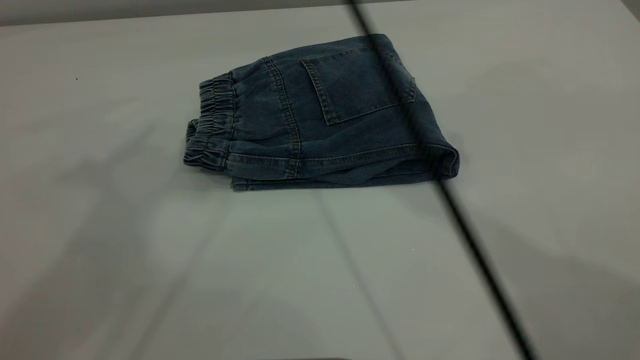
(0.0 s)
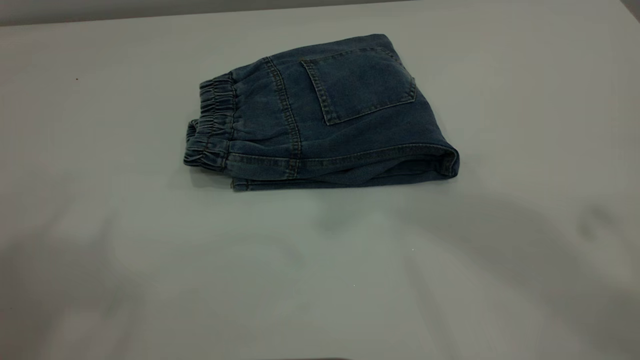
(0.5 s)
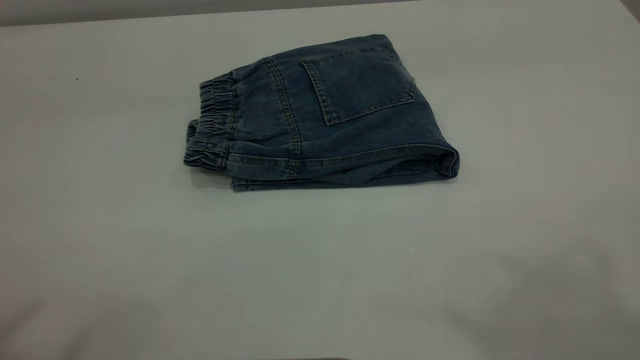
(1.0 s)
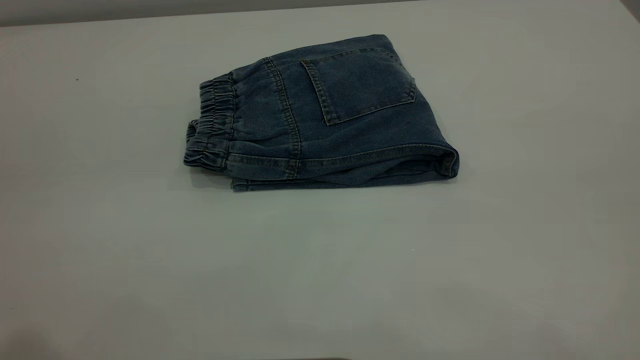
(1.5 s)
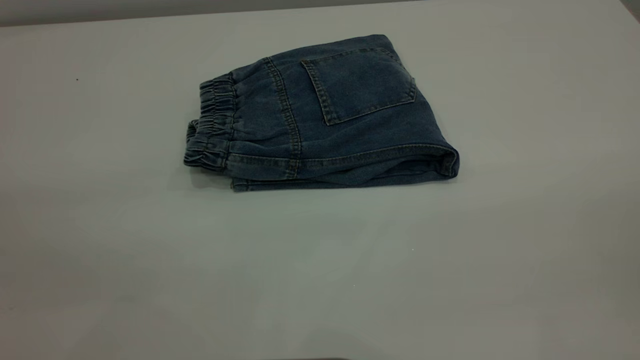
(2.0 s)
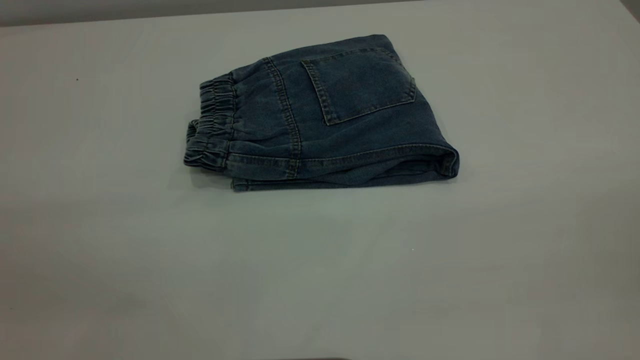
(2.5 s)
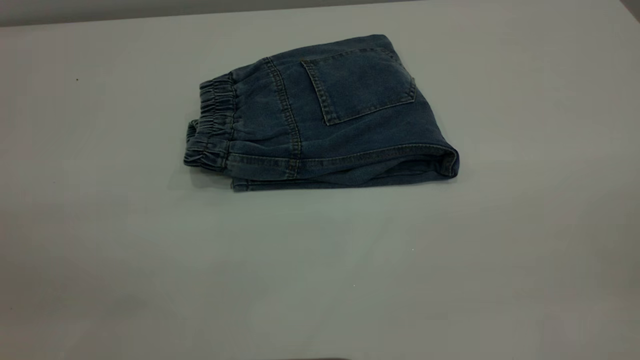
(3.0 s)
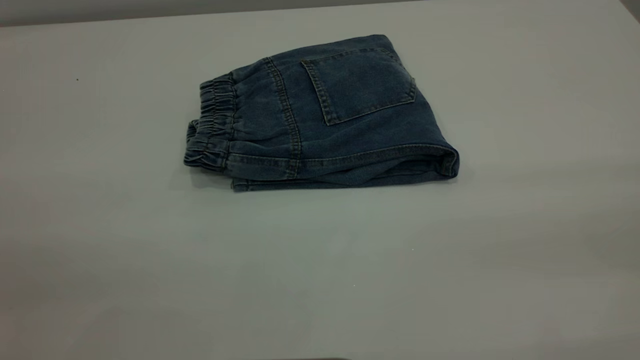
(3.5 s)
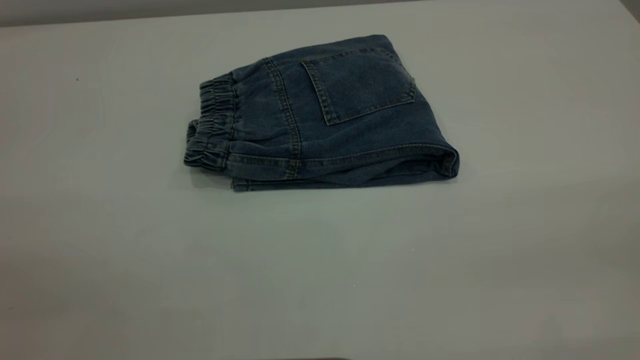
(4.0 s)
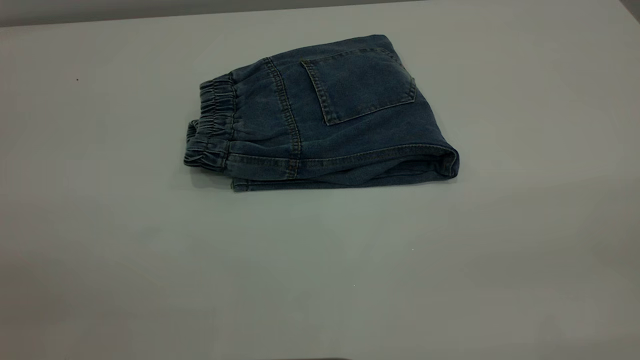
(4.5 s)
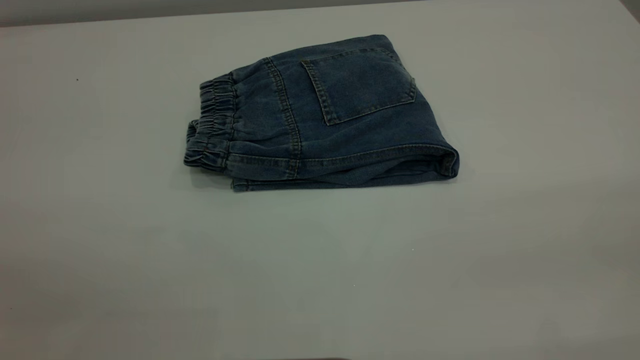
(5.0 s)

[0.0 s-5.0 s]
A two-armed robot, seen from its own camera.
0.0 to 2.5 s: The right gripper shifts approximately 50 cm backward and to the right.

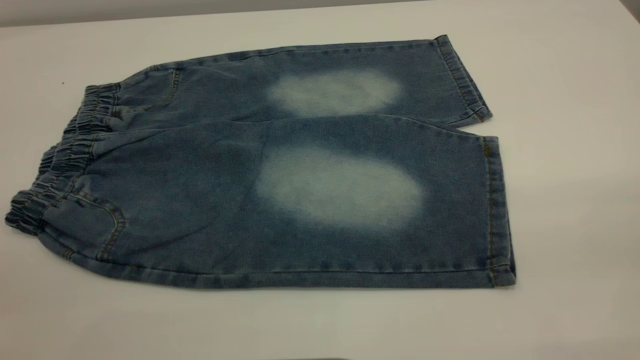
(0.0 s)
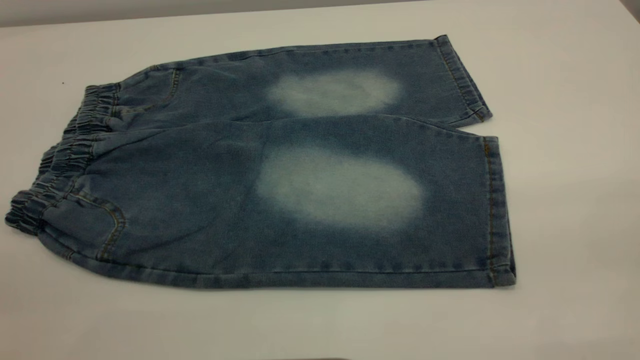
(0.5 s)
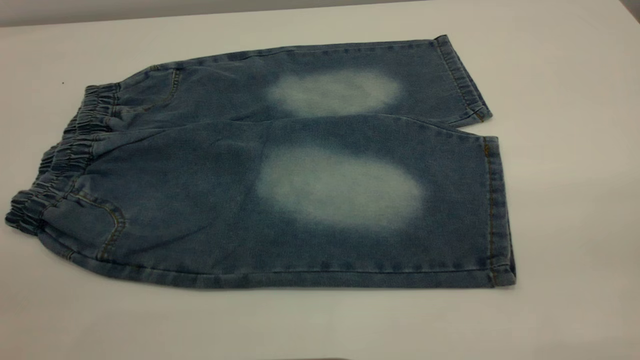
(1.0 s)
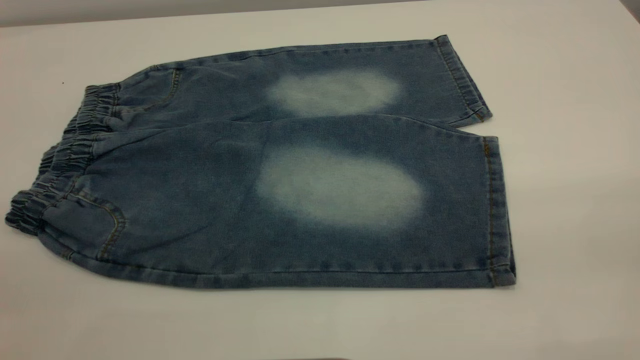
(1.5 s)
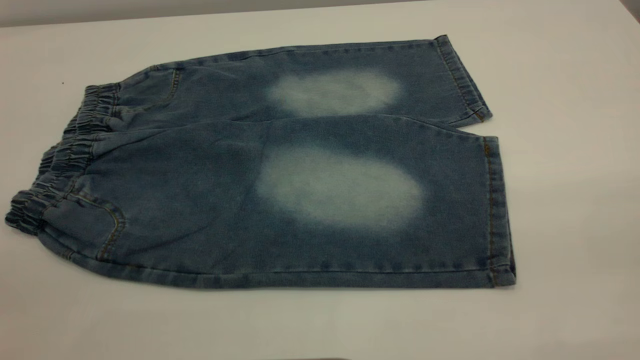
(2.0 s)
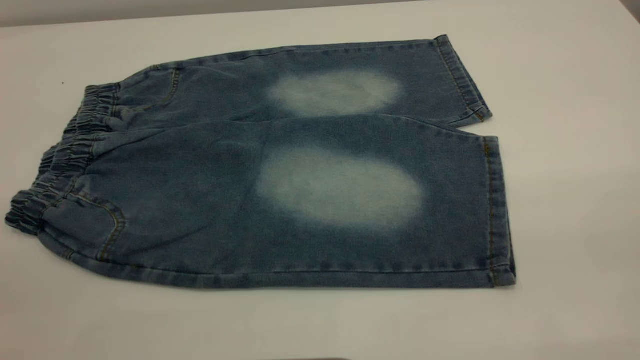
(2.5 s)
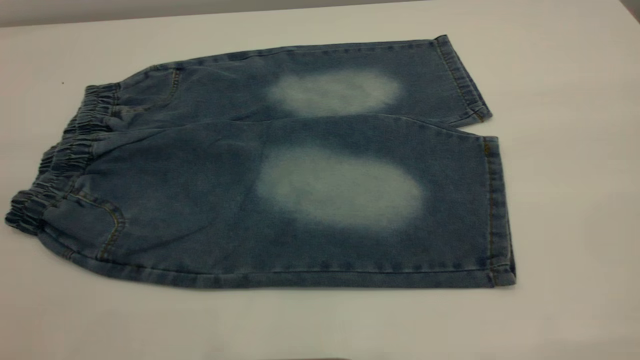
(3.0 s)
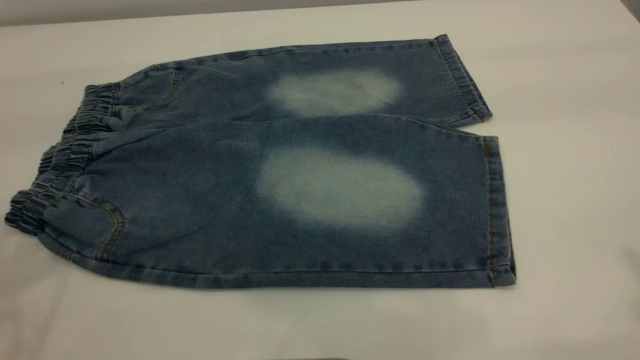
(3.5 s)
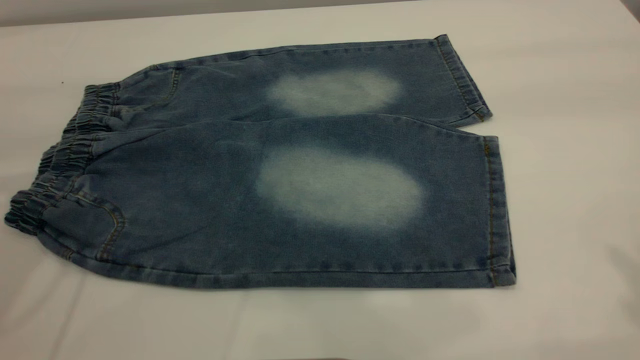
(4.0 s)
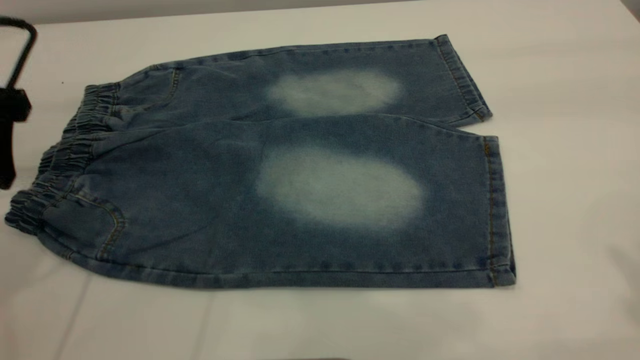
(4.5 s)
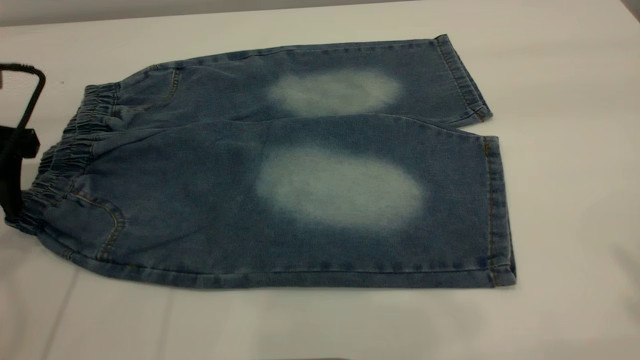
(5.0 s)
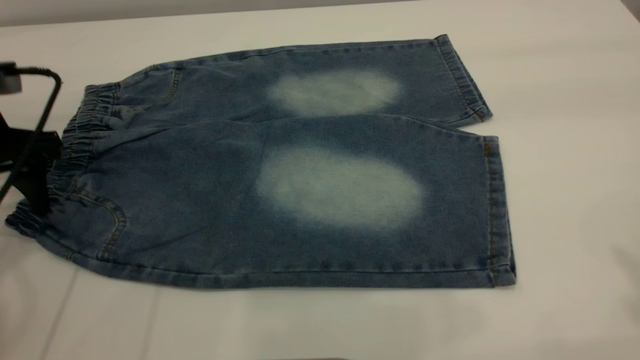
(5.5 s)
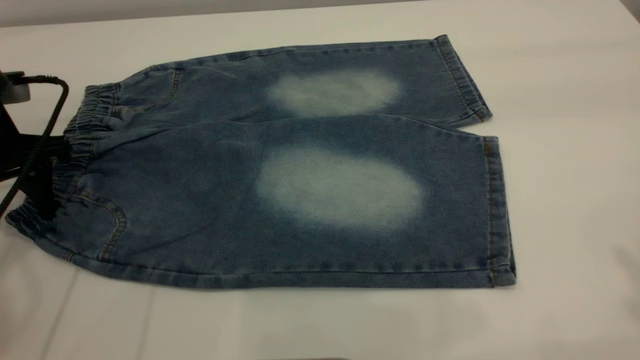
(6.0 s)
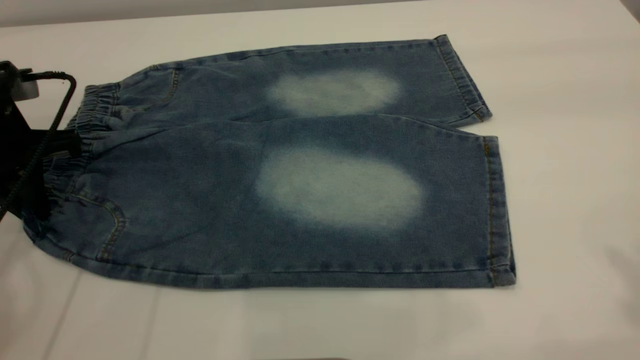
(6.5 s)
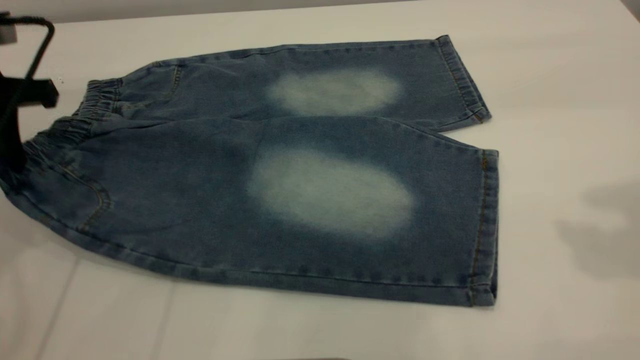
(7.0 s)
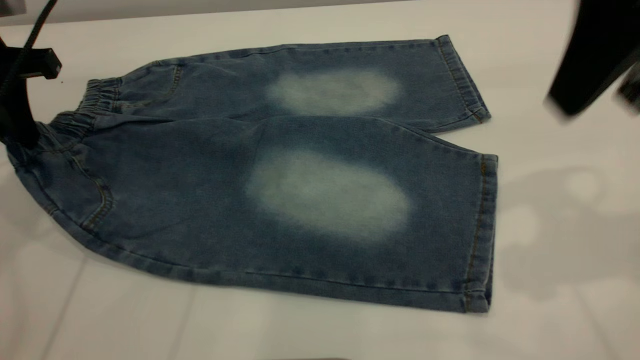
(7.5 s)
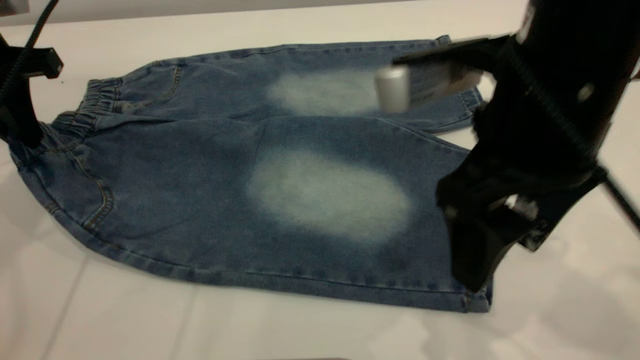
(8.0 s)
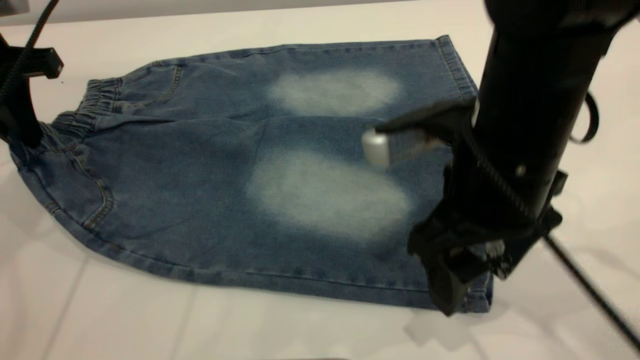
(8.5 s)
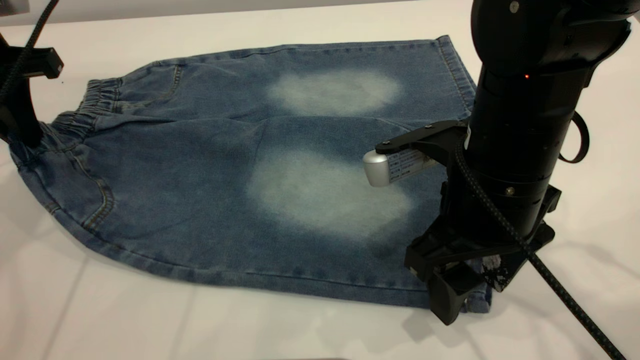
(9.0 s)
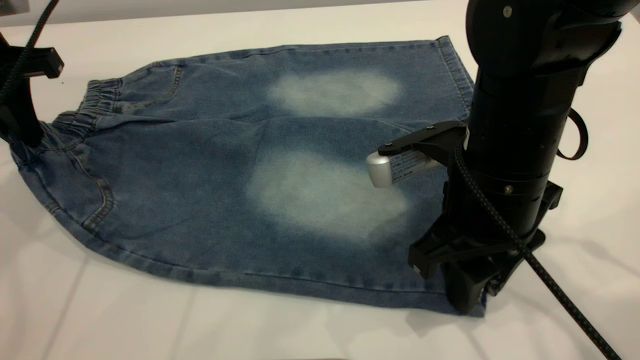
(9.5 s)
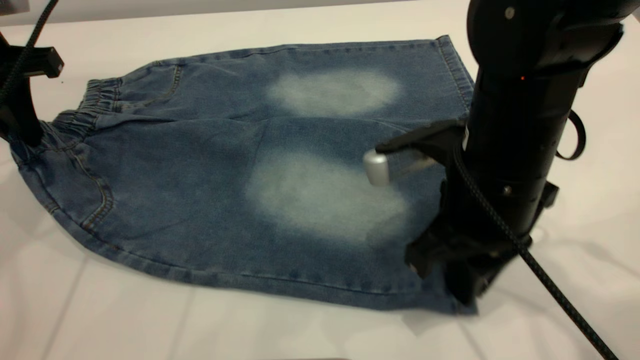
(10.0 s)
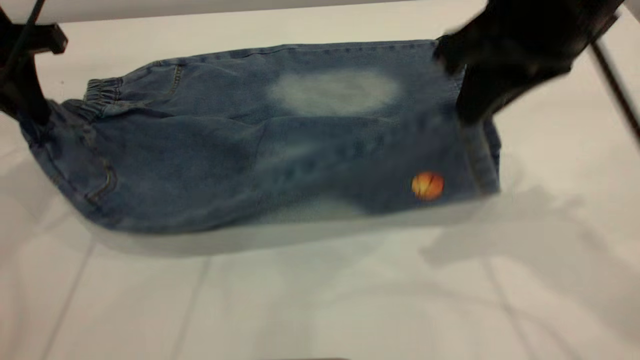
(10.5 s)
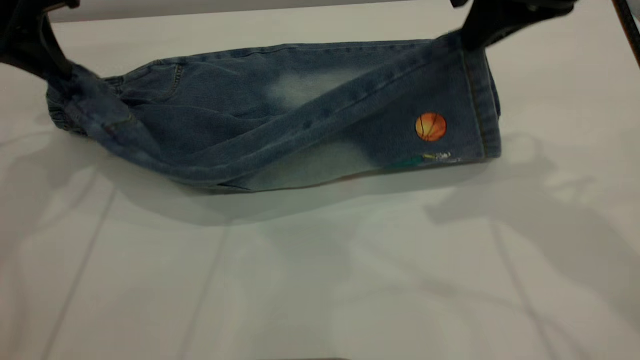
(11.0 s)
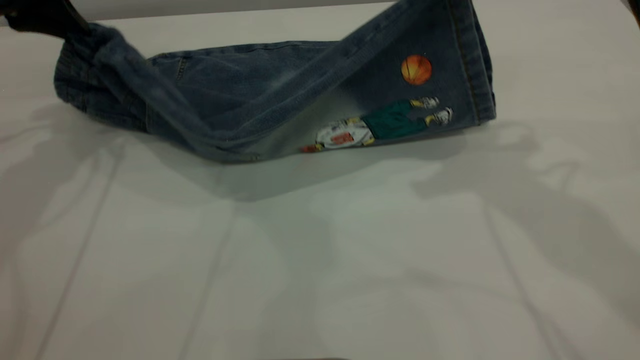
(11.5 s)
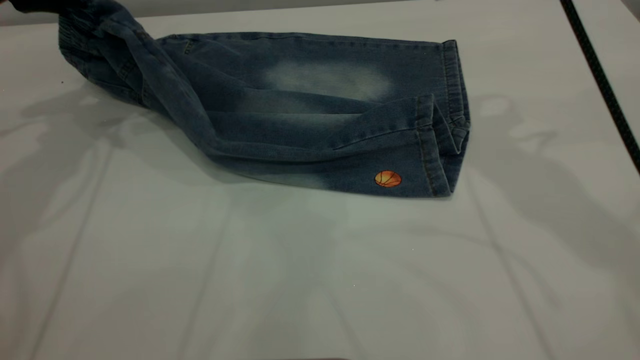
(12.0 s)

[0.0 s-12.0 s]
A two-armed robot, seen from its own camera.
0.0 to 2.0 s: The two grippers keep their place.
4.0 to 6.0 s: The left gripper is displaced downward by approximately 15 cm.
6.0 to 8.0 s: The right gripper travels downward and to the left by some 25 cm; the left gripper shifts some 10 cm upward, and closes up.
8.0 to 10.0 s: The right gripper shifts roughly 5 cm downward, and closes up.
10.0 to 12.0 s: The right gripper goes approximately 20 cm upward and forward; the left gripper is displaced forward by approximately 5 cm.

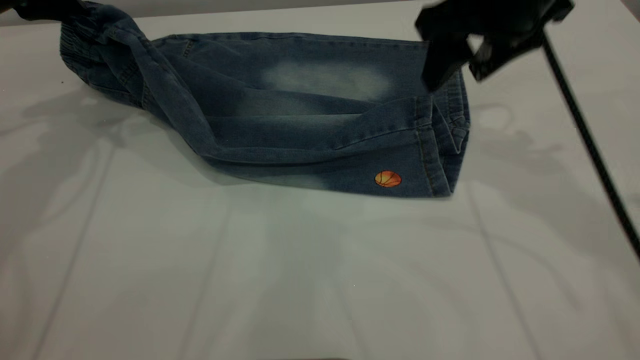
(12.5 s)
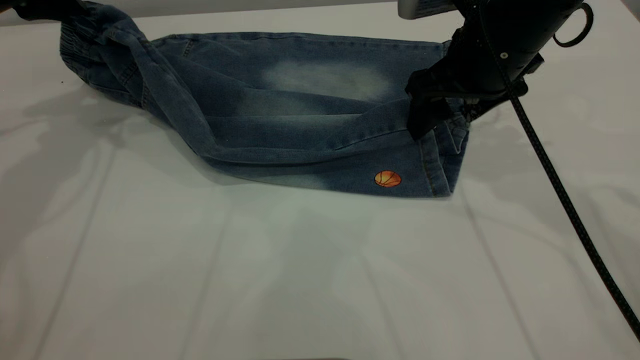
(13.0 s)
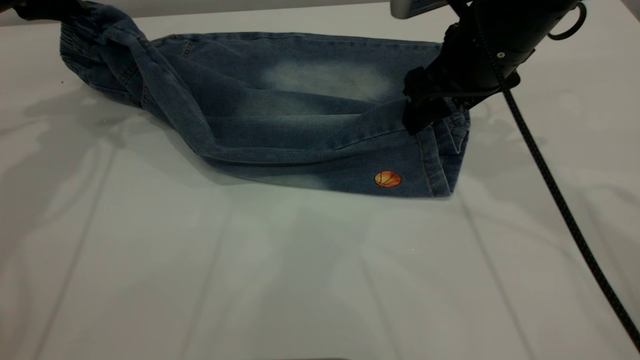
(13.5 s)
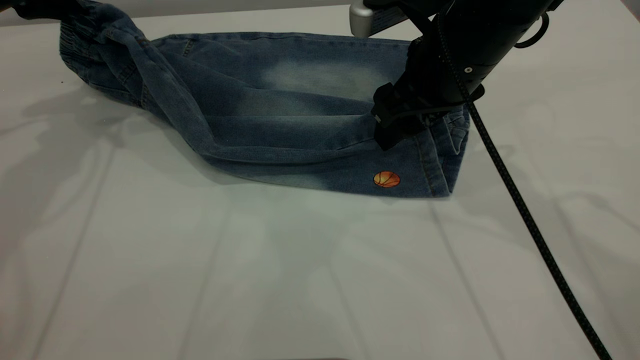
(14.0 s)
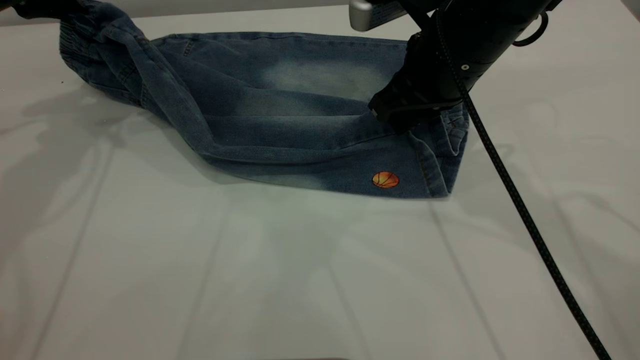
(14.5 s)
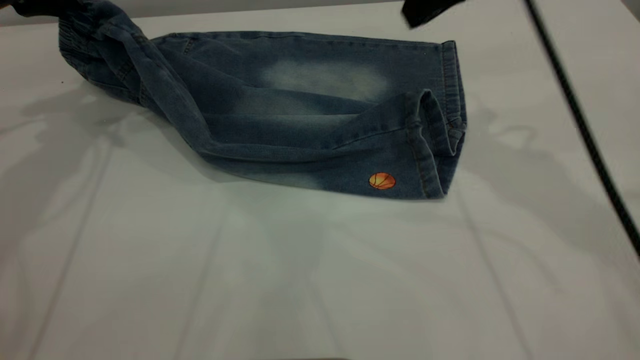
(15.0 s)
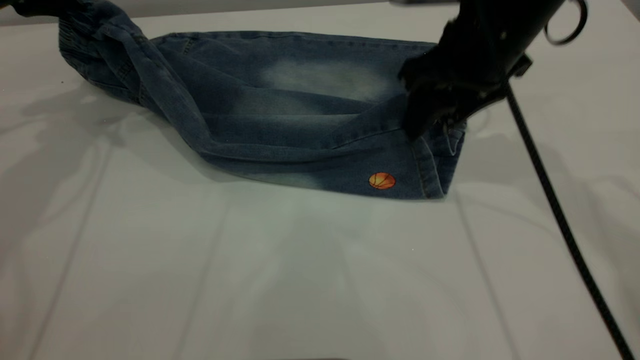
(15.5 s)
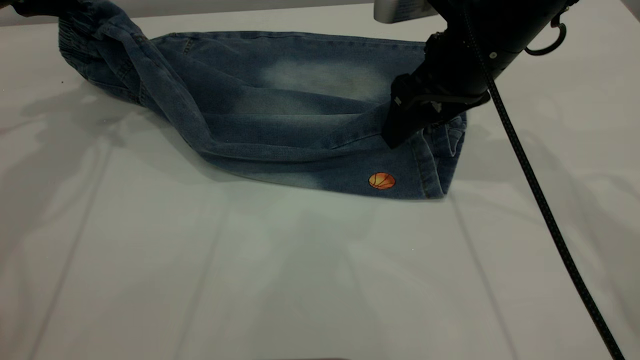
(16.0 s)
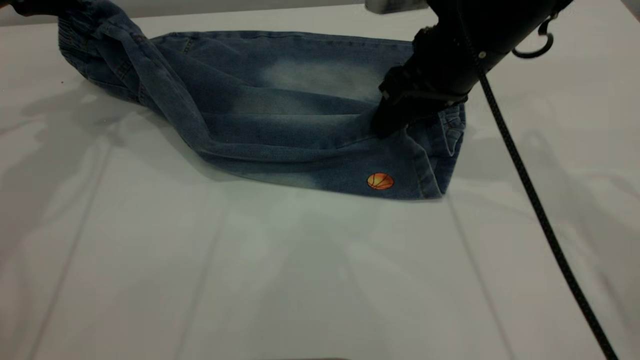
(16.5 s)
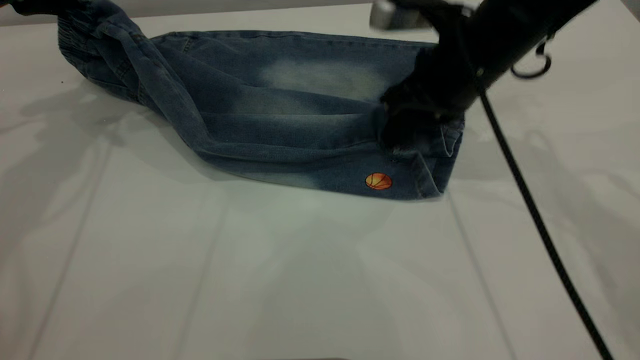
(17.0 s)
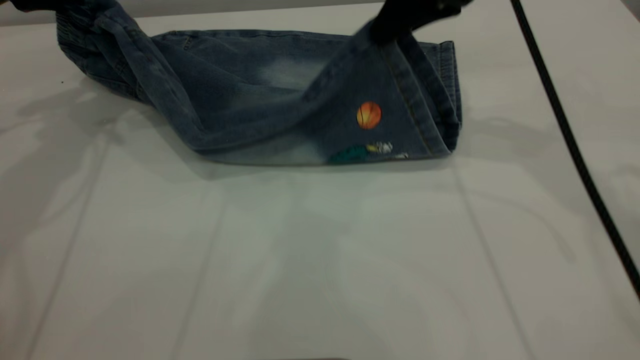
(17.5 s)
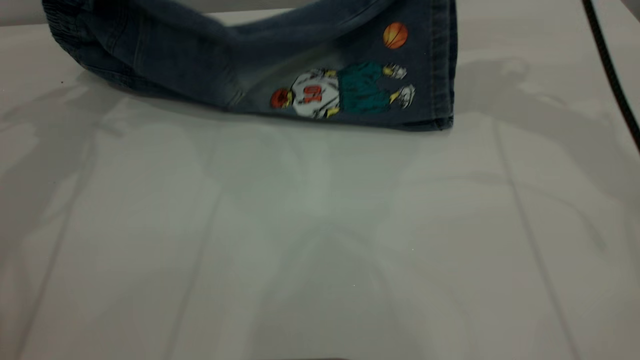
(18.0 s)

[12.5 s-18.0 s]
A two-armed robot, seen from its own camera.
12.5 to 14.5 s: The right gripper shifts by about 5 cm, and closes up.
14.5 to 16.0 s: The right gripper moves some 10 cm upward and comes back, and opens.
16.0 to 18.0 s: The right gripper is displaced upward, to the right and forward by approximately 15 cm, and closes.
